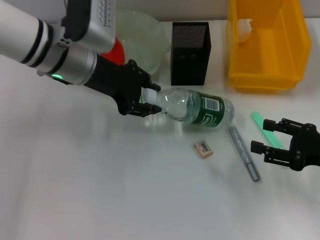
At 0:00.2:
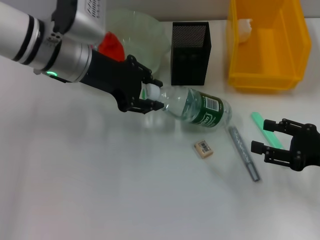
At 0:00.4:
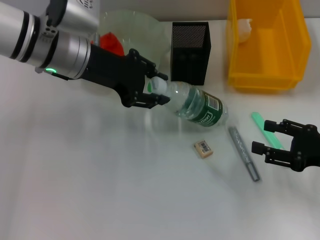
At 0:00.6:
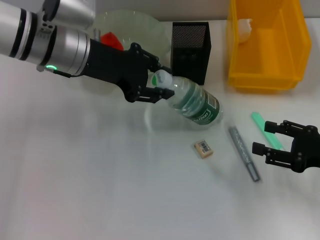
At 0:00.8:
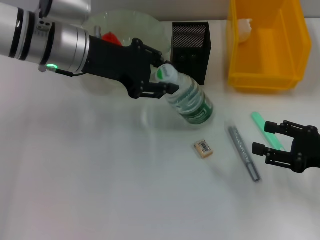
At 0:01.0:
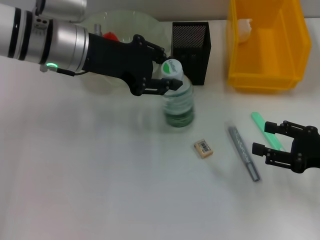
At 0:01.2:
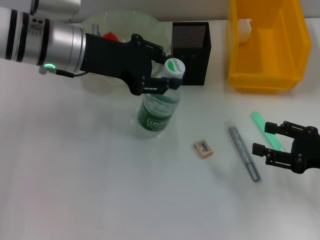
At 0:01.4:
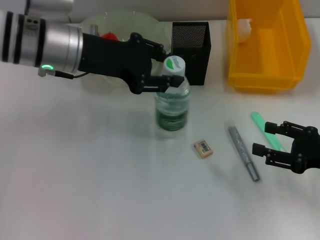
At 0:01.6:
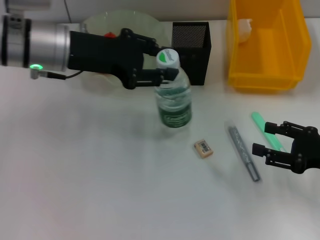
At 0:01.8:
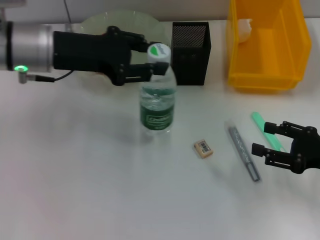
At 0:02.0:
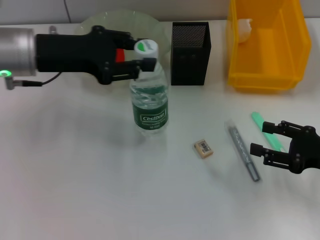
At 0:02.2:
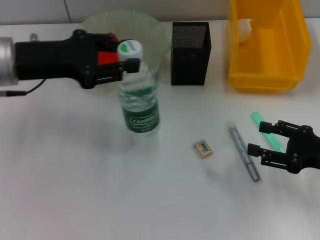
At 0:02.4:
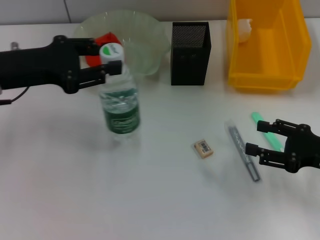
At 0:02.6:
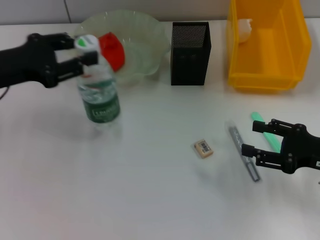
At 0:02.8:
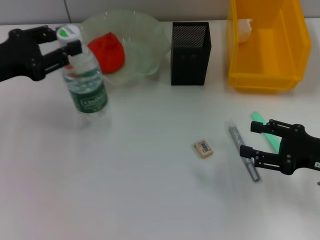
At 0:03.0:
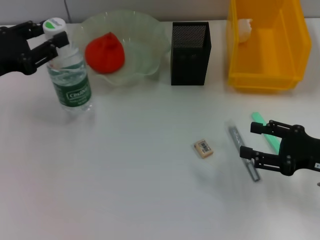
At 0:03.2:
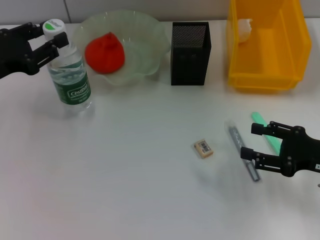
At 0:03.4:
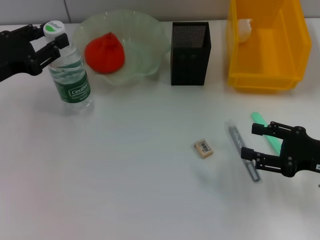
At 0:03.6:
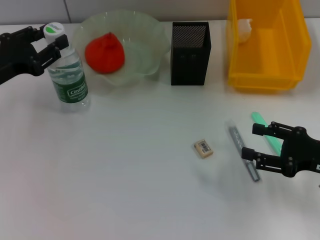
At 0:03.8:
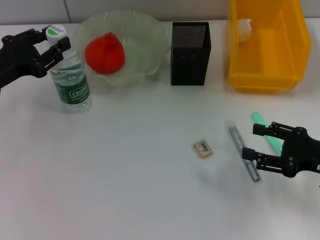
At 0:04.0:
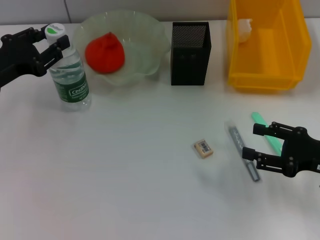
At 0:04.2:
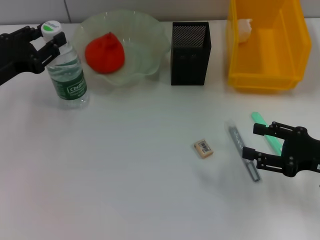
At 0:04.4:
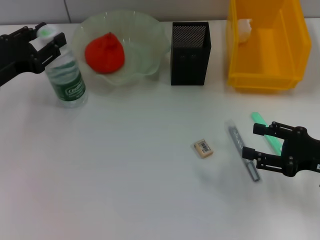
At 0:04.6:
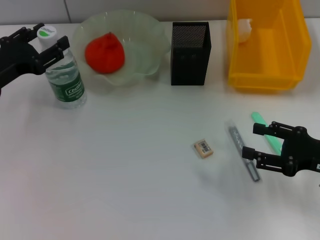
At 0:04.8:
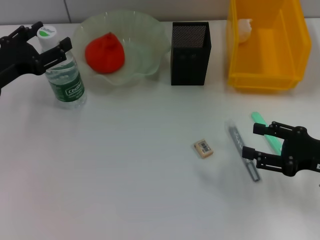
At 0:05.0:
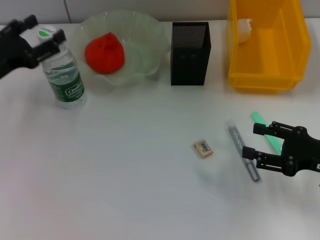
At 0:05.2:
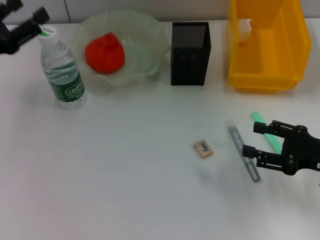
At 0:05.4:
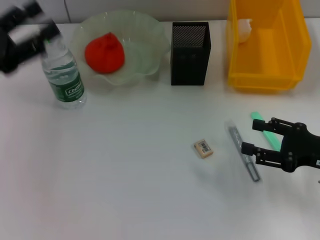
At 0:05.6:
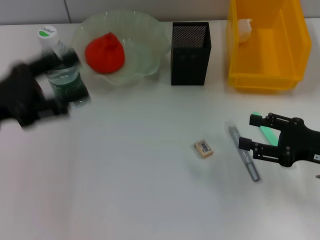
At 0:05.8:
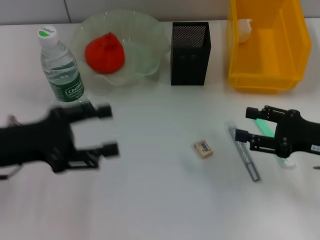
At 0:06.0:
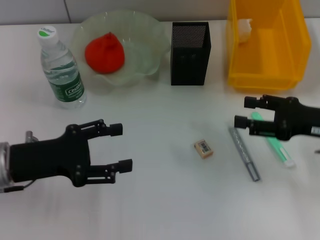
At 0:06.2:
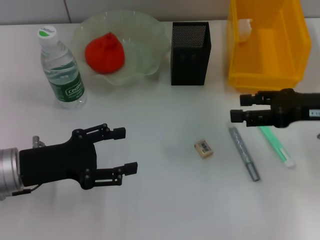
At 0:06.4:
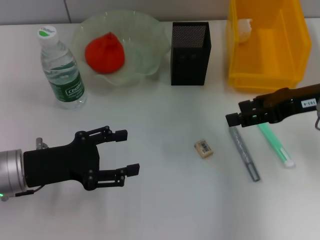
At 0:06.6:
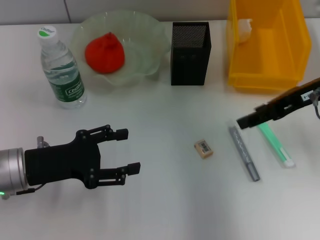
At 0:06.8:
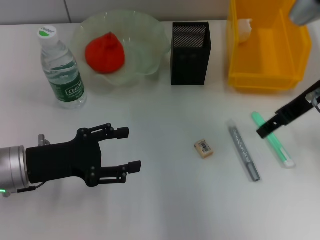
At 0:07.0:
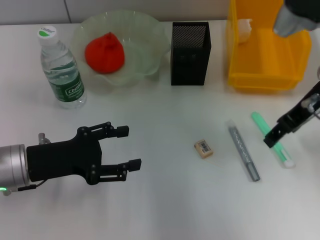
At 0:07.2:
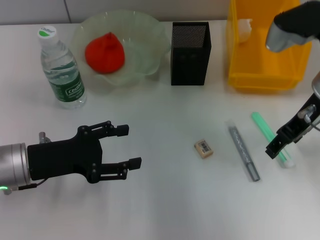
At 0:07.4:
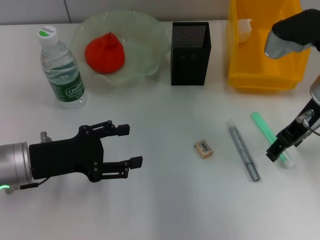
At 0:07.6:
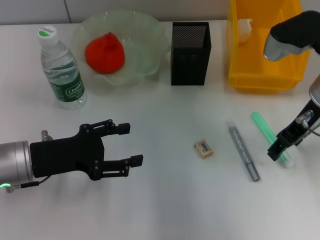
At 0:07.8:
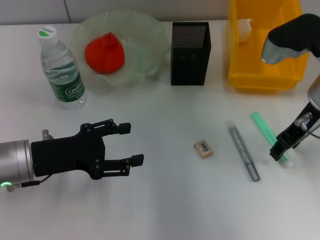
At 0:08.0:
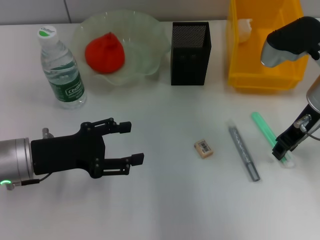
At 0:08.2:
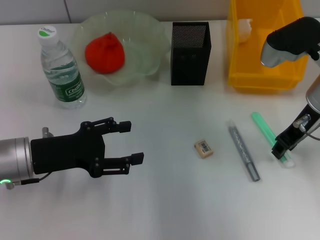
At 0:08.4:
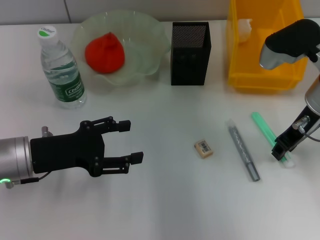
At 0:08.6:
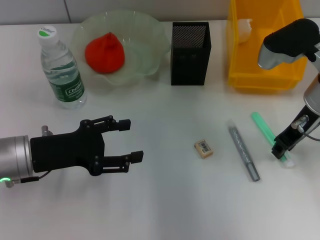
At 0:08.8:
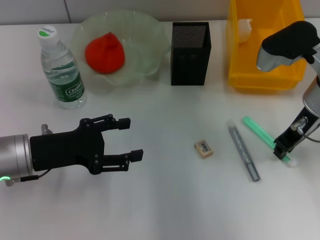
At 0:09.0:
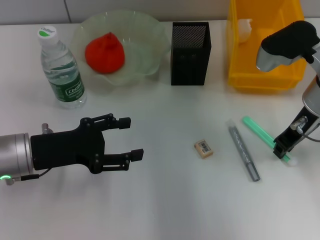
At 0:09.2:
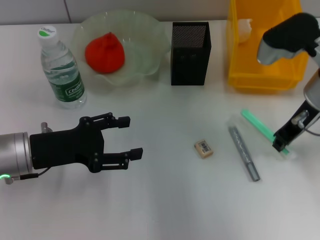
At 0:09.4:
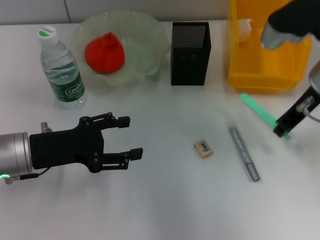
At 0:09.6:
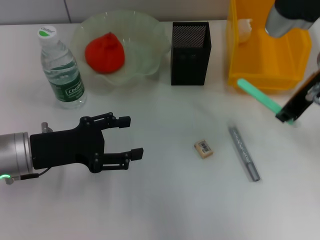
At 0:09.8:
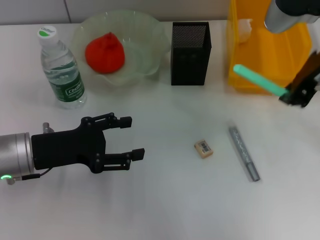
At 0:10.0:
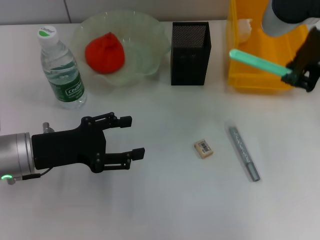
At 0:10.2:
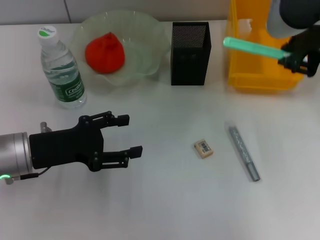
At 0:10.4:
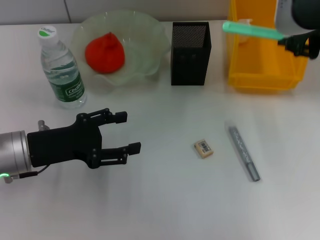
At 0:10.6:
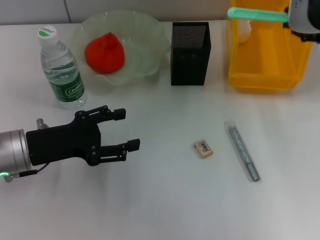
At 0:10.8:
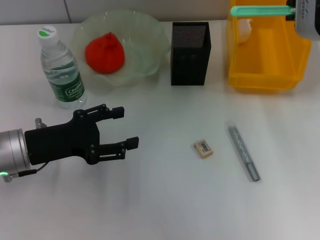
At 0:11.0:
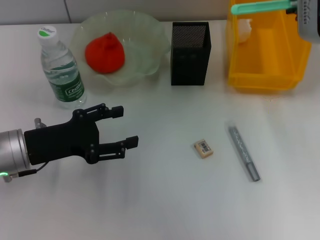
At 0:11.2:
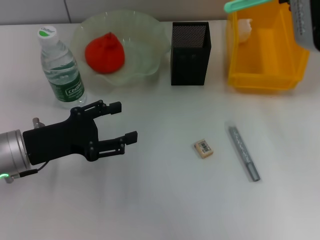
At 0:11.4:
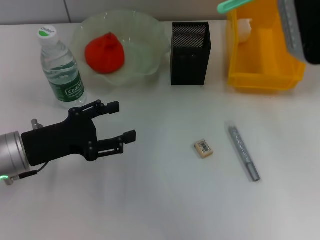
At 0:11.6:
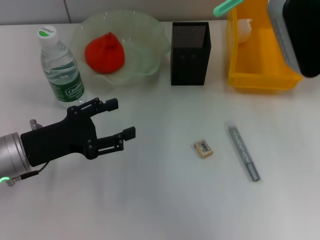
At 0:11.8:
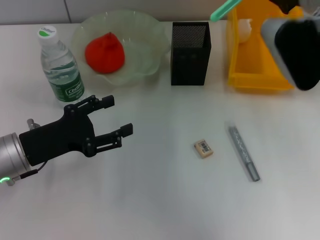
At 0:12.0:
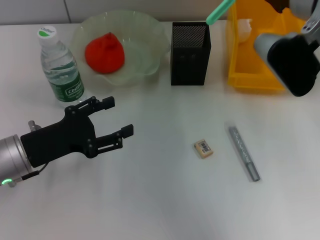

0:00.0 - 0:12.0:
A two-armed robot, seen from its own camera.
Step, 0:00.0 - 0:04.4: Place the water bottle on the table with the left hand.
Step, 0:04.6 - 0:08.8: Grab the blue utility knife with the right hand.
0:01.6 - 0:03.0: The left gripper travels to the left and backward by roughly 15 cm.
0:03.0 - 0:04.4: There are only small adjustments of the grippers.
0:04.4 - 0:06.0: The right gripper shifts by some 5 cm. Meanwhile the left gripper travels backward by about 10 cm, and opens.
0:06.0 - 0:07.6: The right gripper goes about 10 cm to the left, forward and upward.
0:07.6 - 0:09.0: The right gripper closes.
0:09.0 - 0:10.4: The right gripper is displaced upward by about 15 cm.
0:10.4 - 0:12.0: The right gripper heads downward, covering about 10 cm.

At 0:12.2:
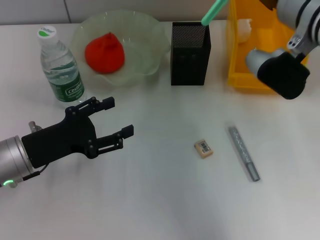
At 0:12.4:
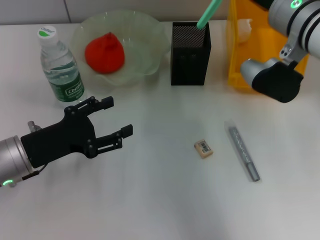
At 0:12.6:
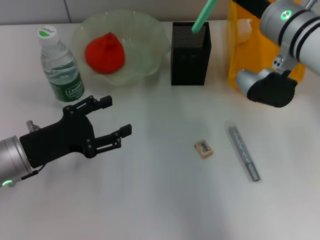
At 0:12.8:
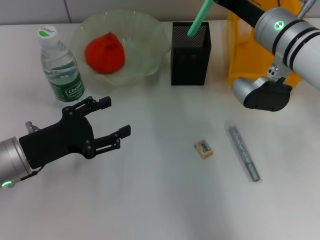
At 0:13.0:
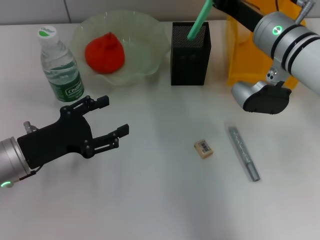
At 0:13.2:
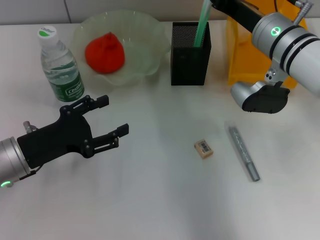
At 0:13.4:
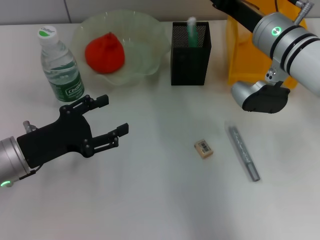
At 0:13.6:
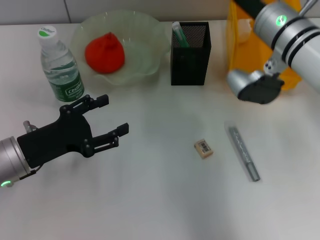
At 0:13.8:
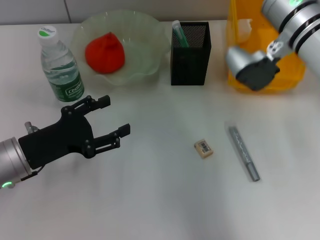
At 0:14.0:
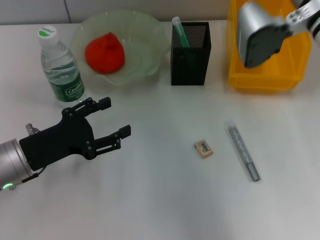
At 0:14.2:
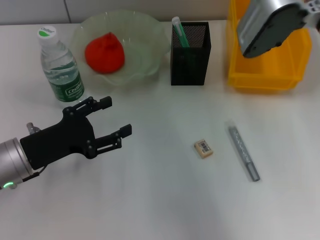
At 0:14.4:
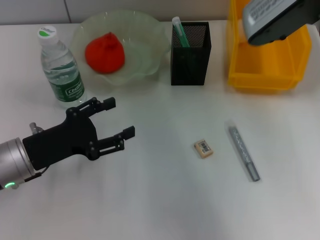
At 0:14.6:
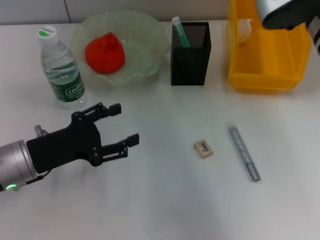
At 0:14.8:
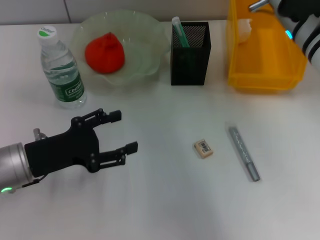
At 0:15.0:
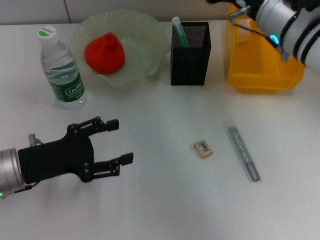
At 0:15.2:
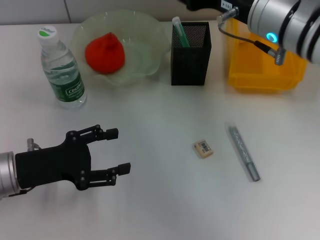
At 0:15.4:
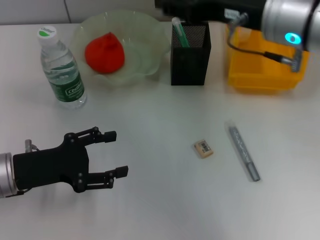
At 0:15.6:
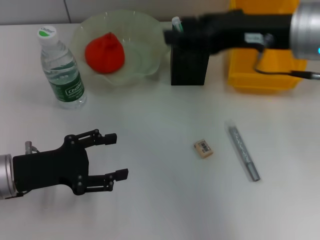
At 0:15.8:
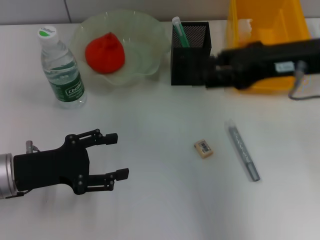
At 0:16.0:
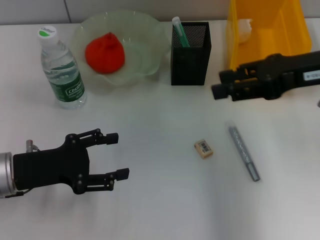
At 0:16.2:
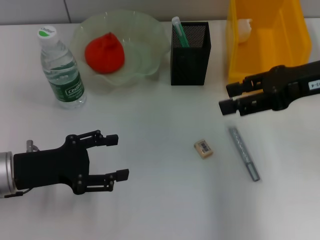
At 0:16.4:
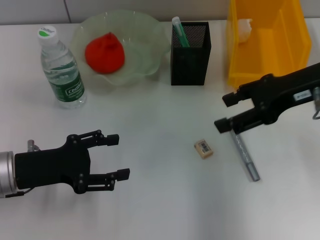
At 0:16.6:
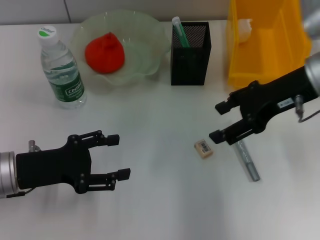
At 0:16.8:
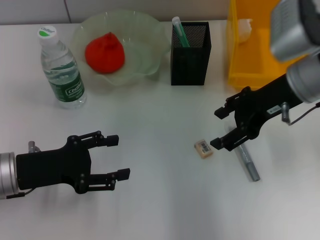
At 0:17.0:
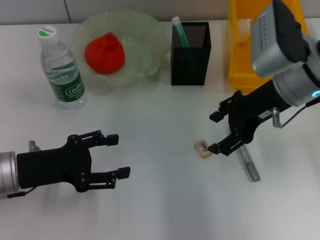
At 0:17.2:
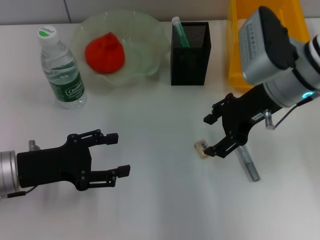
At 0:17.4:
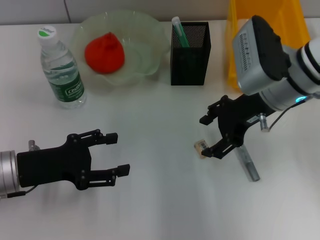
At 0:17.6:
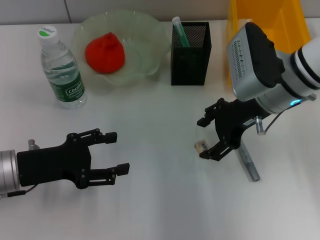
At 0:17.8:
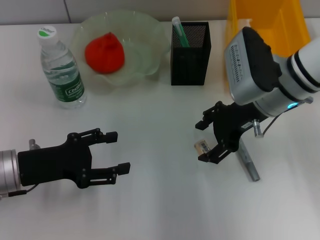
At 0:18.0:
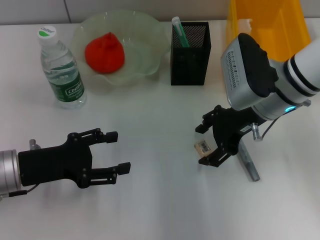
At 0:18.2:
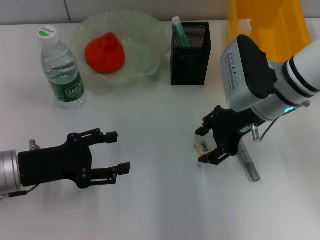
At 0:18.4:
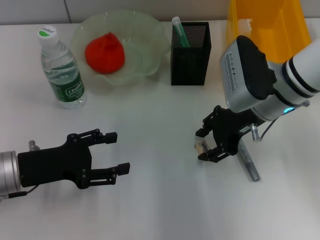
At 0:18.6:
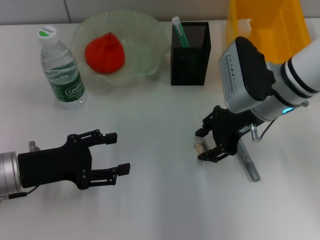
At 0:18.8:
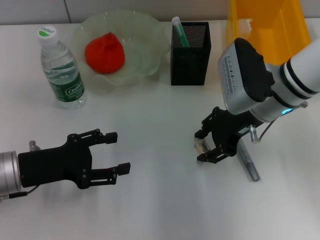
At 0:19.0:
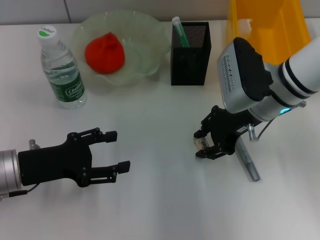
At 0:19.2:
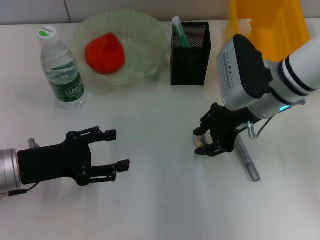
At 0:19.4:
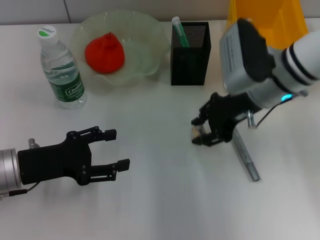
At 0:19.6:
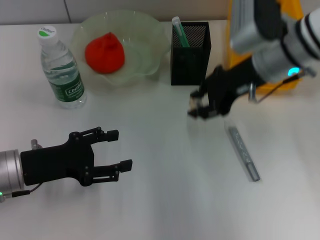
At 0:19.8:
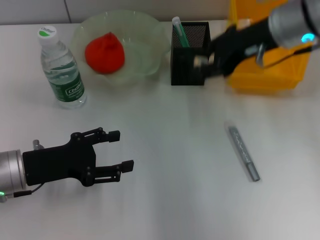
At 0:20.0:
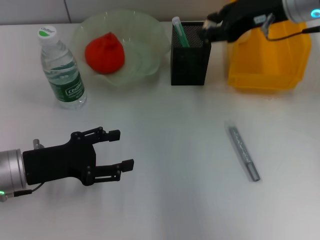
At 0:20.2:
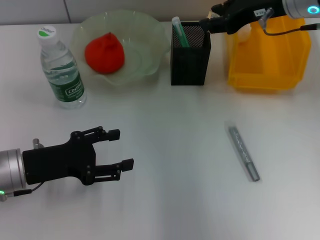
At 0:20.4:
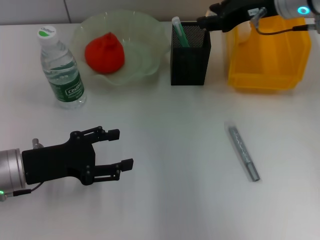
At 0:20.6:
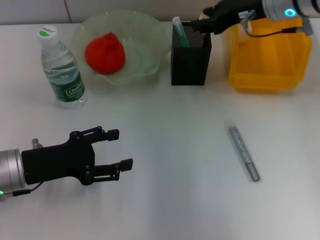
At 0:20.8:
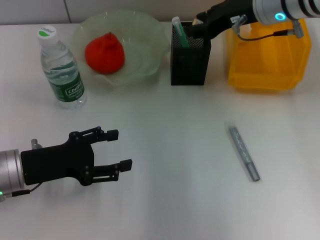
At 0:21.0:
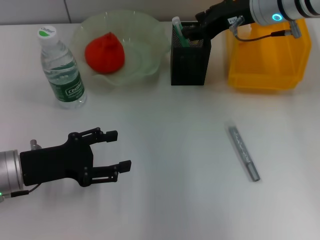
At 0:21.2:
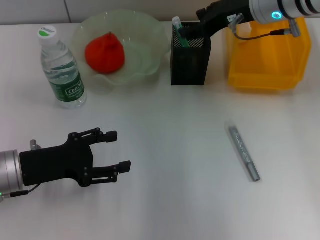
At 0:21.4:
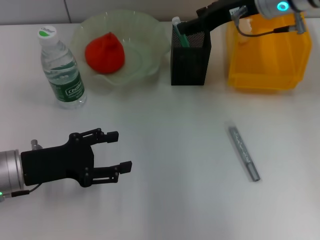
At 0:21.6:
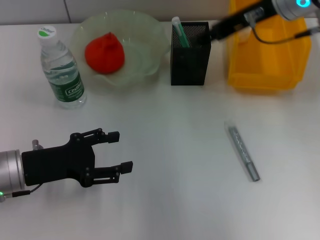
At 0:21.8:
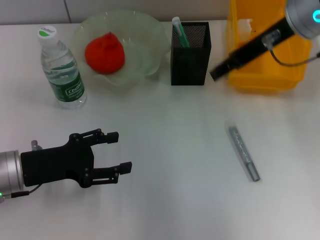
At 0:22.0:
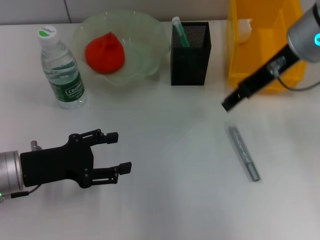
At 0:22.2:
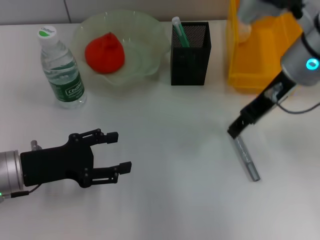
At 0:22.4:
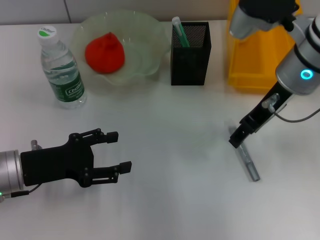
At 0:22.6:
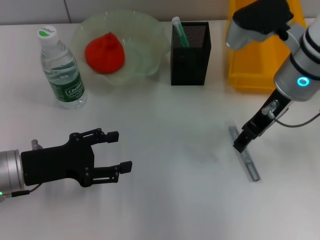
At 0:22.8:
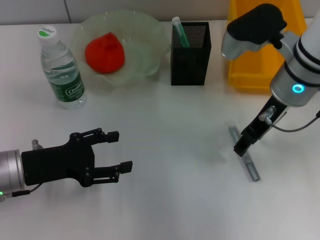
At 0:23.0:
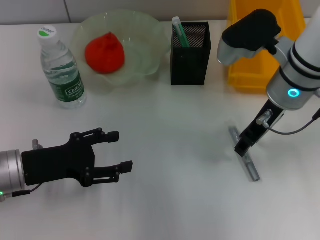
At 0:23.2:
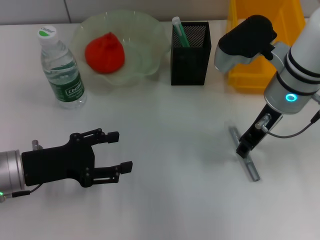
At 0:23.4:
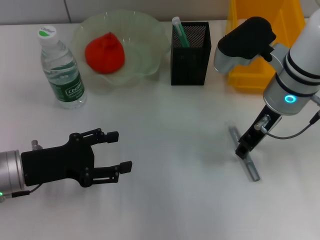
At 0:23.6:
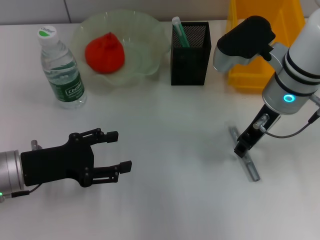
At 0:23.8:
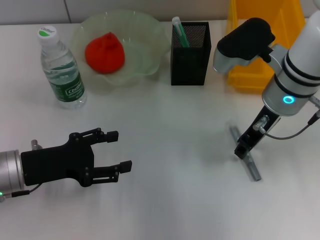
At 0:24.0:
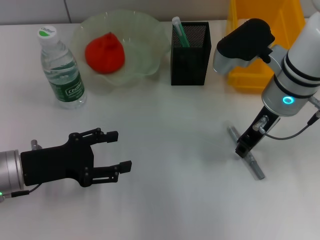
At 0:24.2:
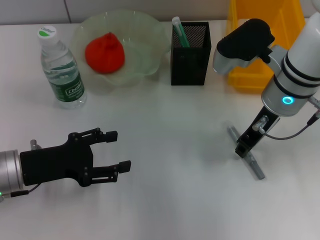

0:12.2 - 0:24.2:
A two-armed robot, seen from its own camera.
Step, 0:14.0 - 0:18.8: Grab the eraser with the right hand.
Step, 0:19.2 - 0:21.0: Put the eraser into the pen holder with the right hand.
0:12.2 - 0:13.8: The right gripper opens its fingers.
0:13.8 - 0:15.2: The right gripper ends up some 5 cm from where it was.
0:15.2 - 0:16.6: The right gripper heads to the right, covering roughly 5 cm.
0:16.6 - 0:18.2: The right gripper moves downward and to the left, about 10 cm.
0:18.2 - 0:19.8: The right gripper heads upward, covering approximately 10 cm, and closes.
0:19.8 - 0:21.2: There are only small adjustments of the grippers.
0:21.2 - 0:22.6: The right gripper is displaced backward by approximately 5 cm.
0:22.6 - 0:24.2: The right gripper closes its fingers.
